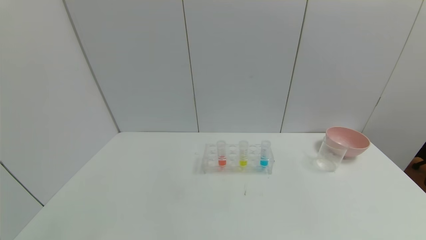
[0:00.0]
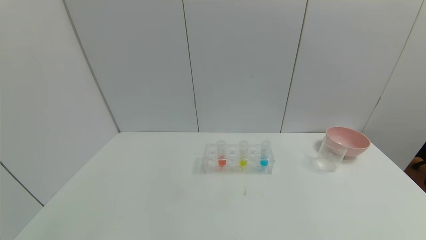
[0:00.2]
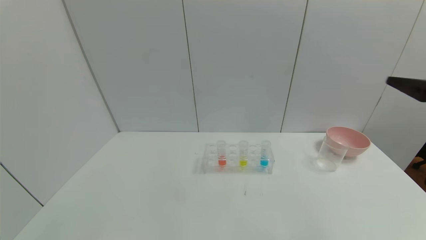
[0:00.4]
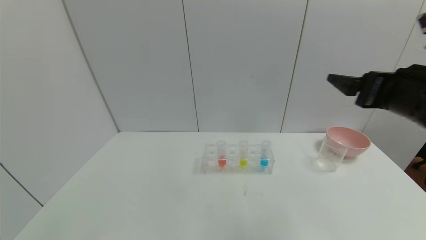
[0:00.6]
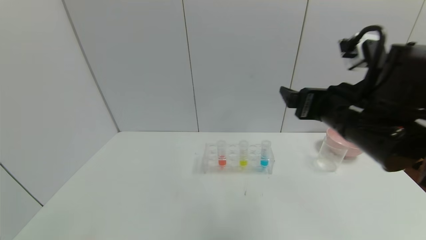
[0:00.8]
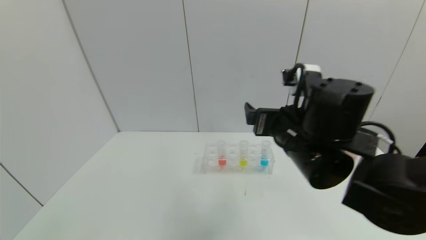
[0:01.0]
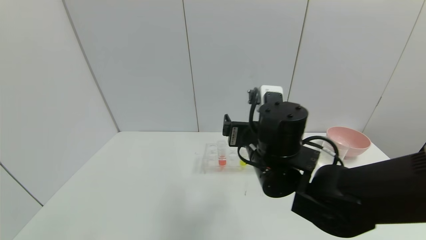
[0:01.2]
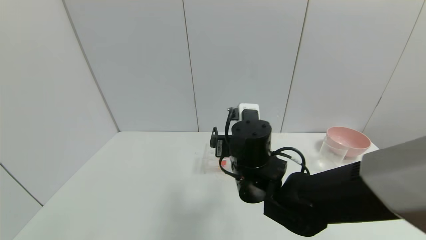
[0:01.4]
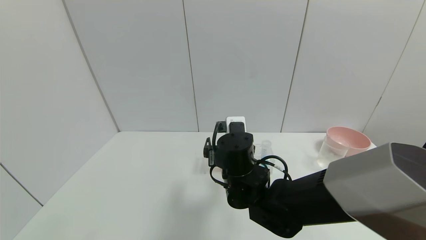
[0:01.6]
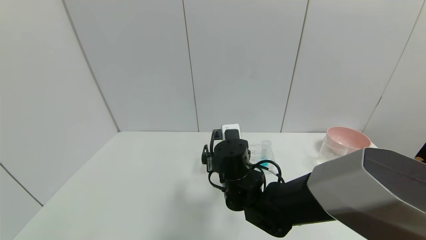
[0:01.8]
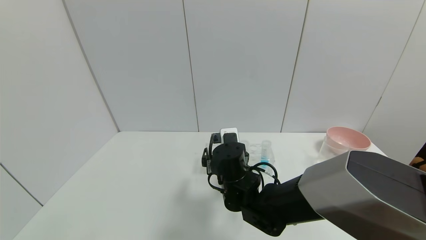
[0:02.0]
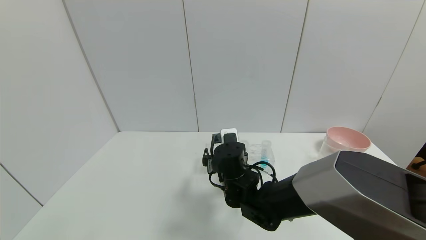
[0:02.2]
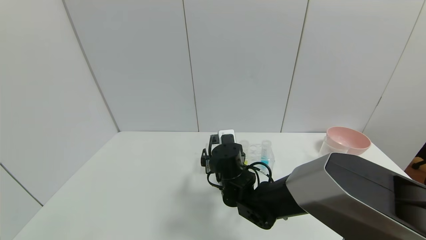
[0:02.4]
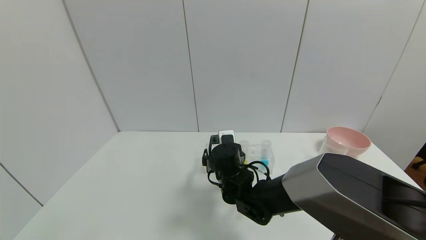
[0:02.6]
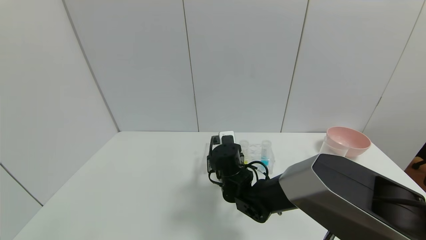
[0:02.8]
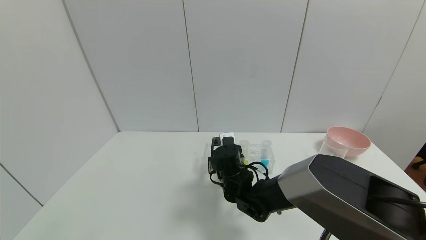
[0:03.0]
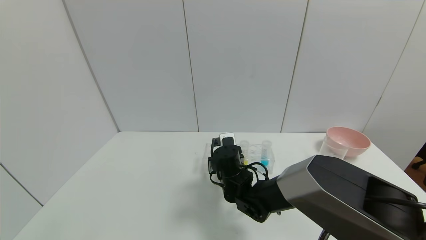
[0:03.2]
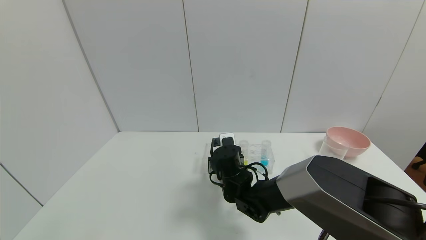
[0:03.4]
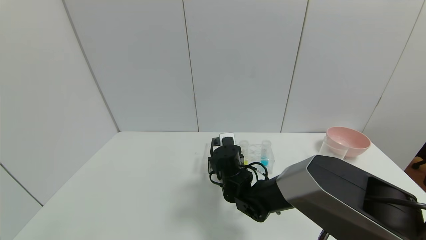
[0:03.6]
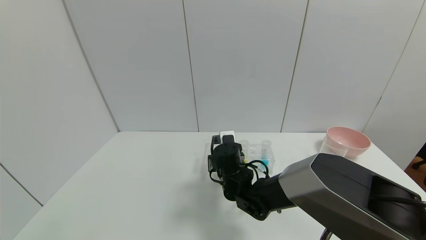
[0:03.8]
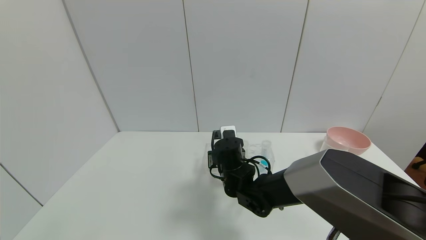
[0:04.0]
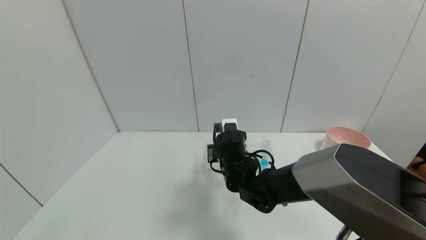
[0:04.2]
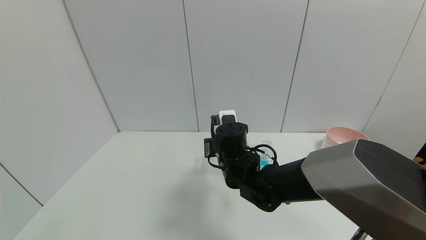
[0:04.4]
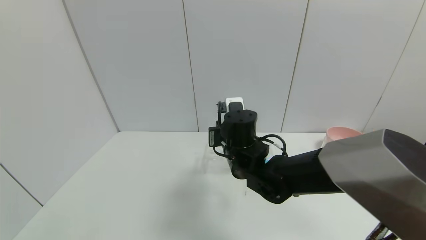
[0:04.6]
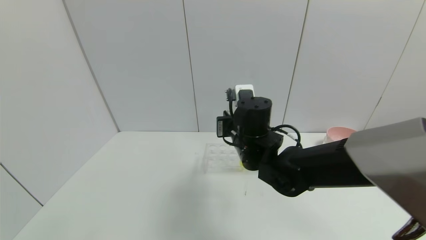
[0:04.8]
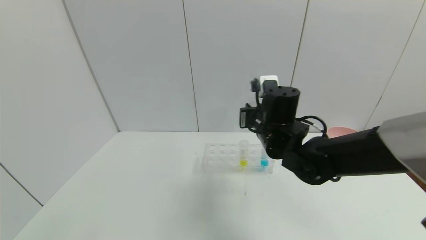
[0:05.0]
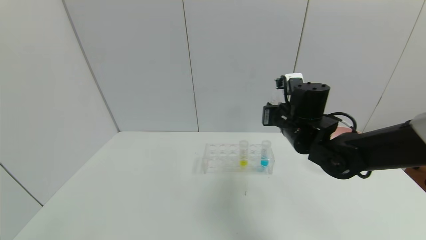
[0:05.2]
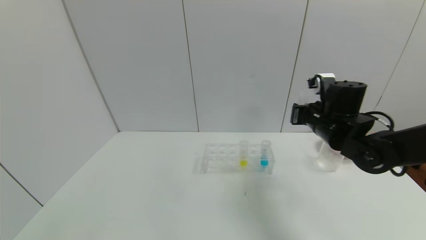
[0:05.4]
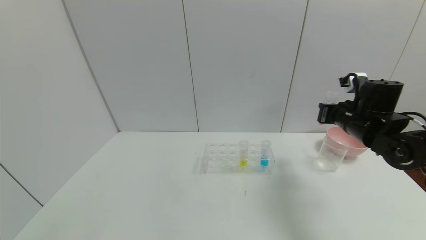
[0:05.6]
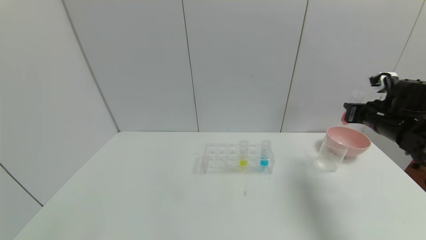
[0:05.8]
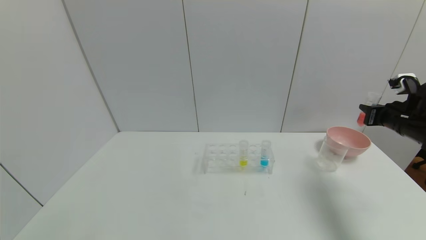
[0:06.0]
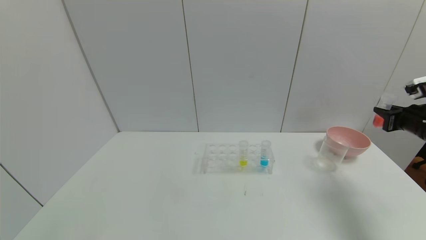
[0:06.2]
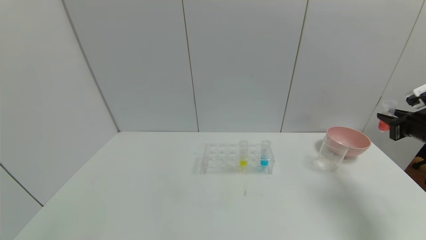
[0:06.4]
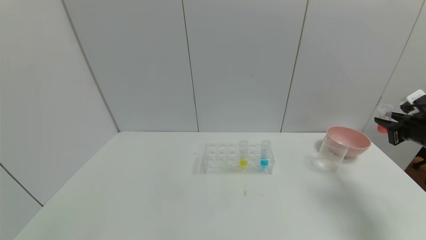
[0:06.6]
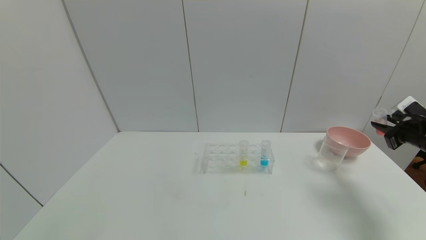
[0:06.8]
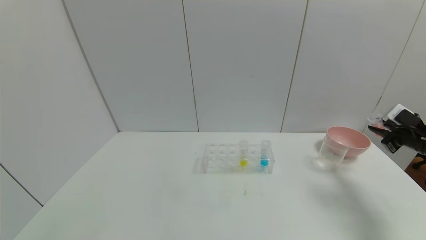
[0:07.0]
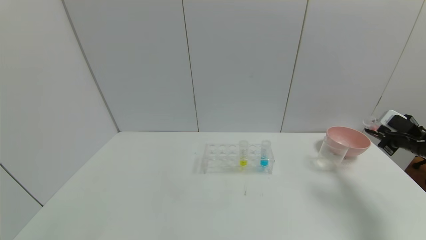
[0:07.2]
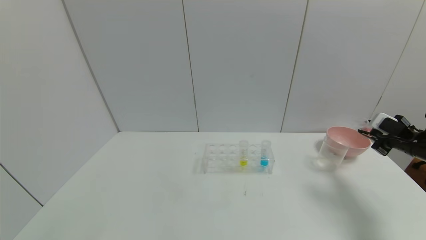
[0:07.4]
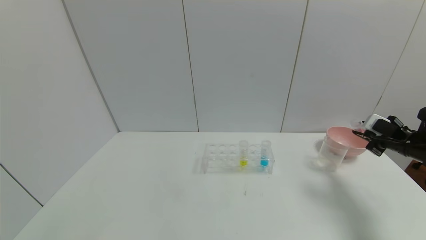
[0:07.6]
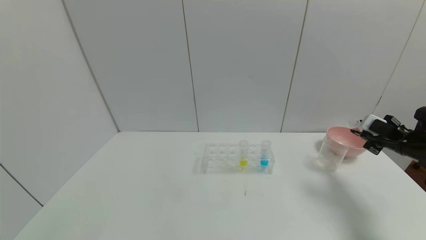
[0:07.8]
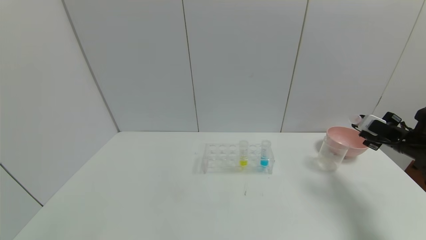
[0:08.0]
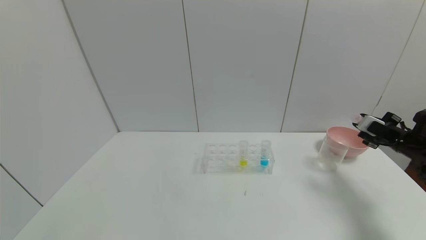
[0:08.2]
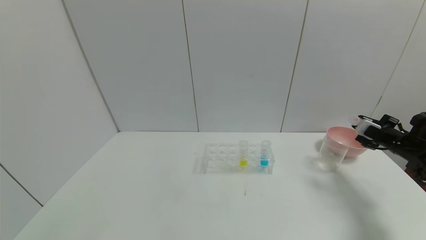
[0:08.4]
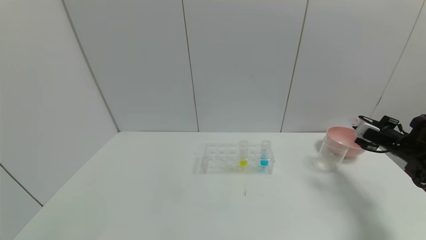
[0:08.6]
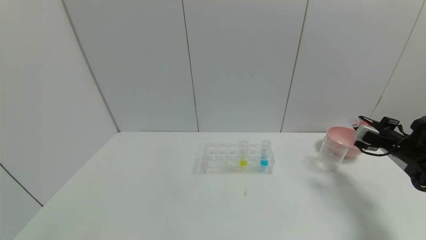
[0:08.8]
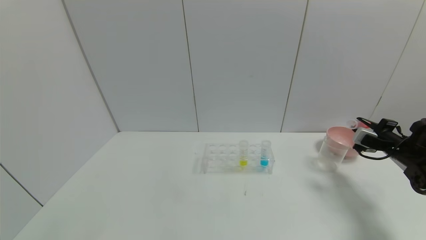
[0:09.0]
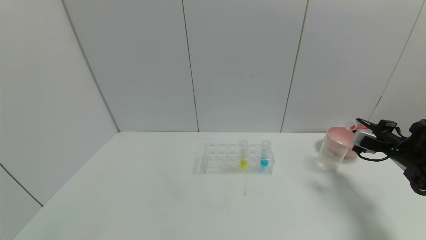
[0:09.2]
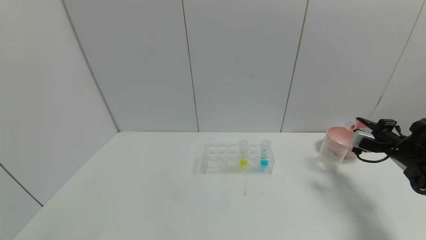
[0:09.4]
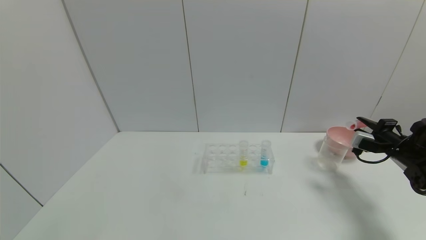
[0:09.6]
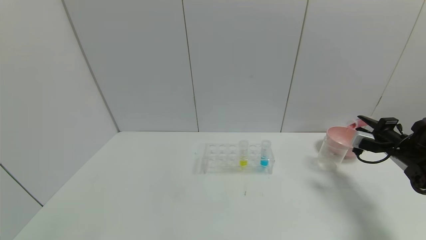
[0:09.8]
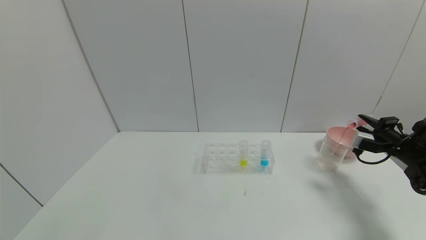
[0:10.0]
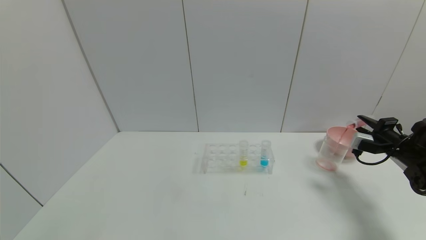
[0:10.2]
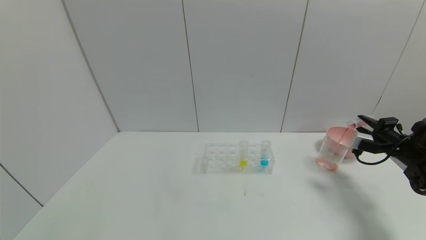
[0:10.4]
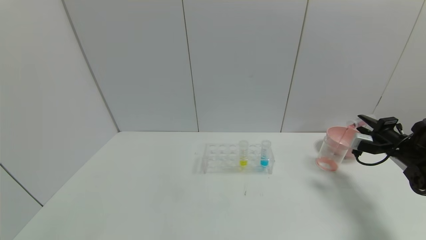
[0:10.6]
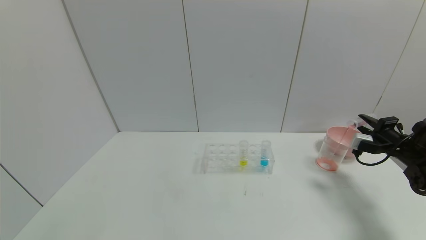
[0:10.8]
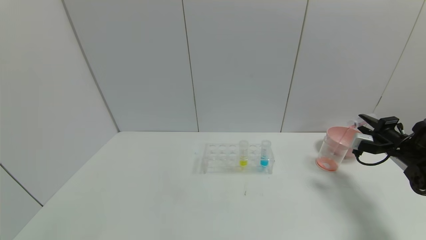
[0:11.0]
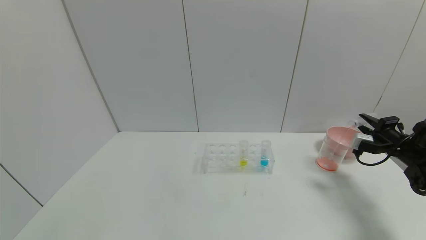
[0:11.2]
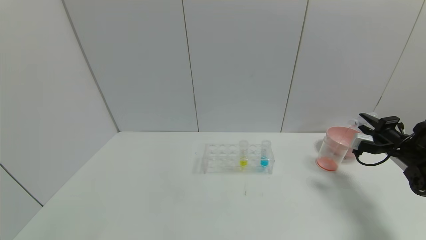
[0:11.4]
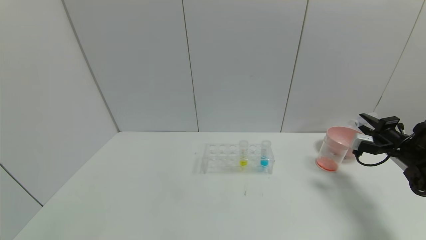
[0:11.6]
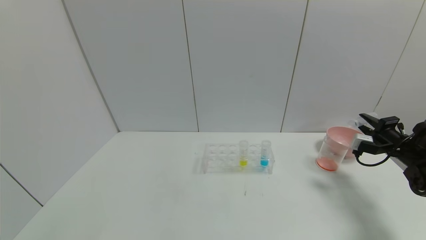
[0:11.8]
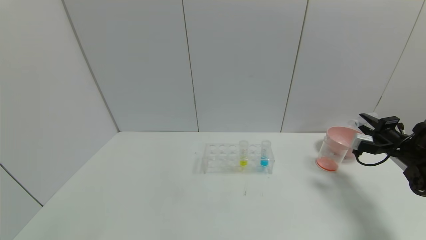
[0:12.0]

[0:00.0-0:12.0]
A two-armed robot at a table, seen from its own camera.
Task of the whole recording: pick up the test tube with yellow pigment and the test tube with red pigment by grippers and pour them into the beaker.
Step, 0:00.0 to 0:03.4: Grasp the red reagent with the right gripper.
Step, 0:03.6 to 0:11.6: Pour the red reagent into the graduated cylinder with the right gripper.
0:00.0 to 0:01.6: The right gripper moves to the left and forward, some 40 cm.
0:01.6 to 0:03.0: The right gripper is displaced downward and forward by about 10 cm, and closes its fingers.
0:03.0 to 0:04.4: The right gripper goes some 5 cm upward.
0:04.4 to 0:06.0: The right gripper is displaced to the right by about 40 cm.
0:06.0 to 0:07.6: The right gripper travels downward by roughly 5 cm.
0:09.0 to 0:10.4: There are only small adjustments of the grippers.

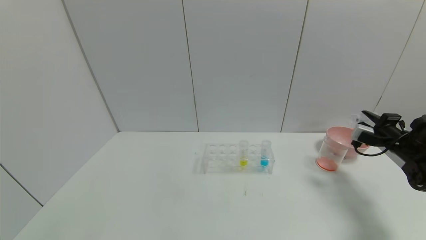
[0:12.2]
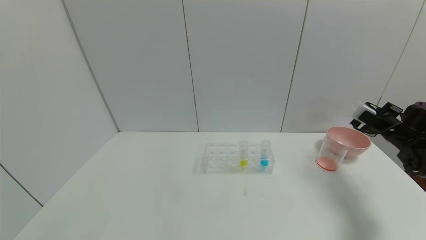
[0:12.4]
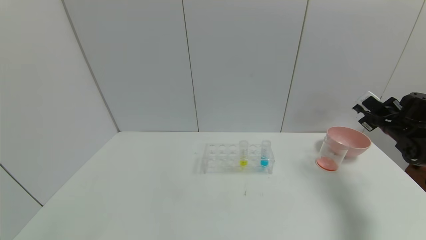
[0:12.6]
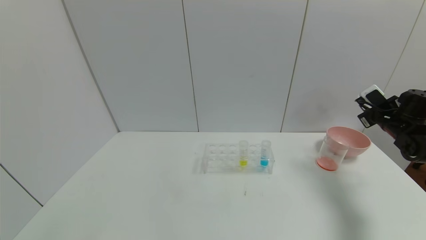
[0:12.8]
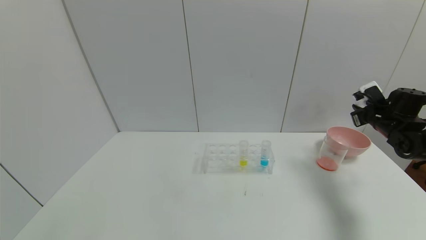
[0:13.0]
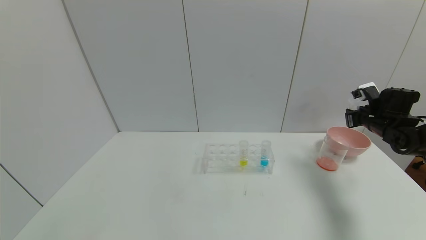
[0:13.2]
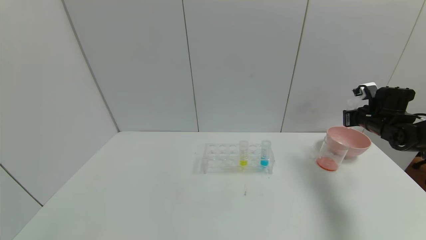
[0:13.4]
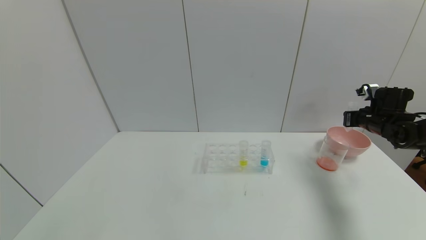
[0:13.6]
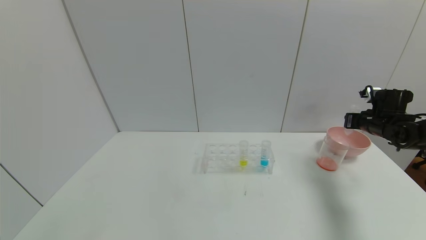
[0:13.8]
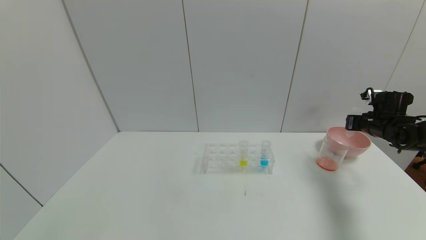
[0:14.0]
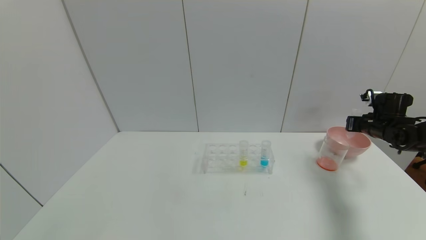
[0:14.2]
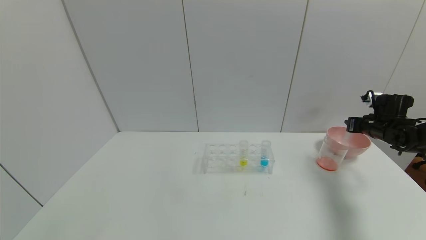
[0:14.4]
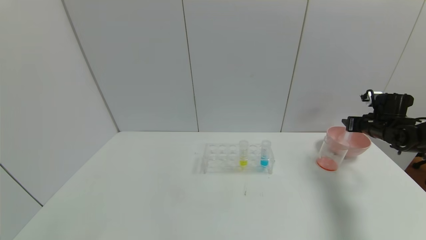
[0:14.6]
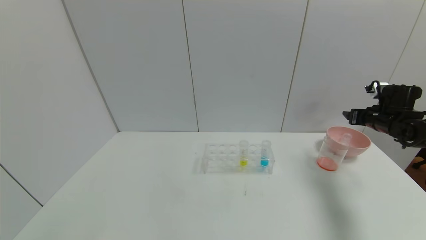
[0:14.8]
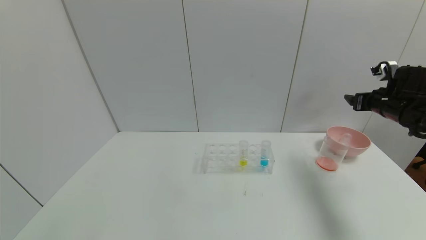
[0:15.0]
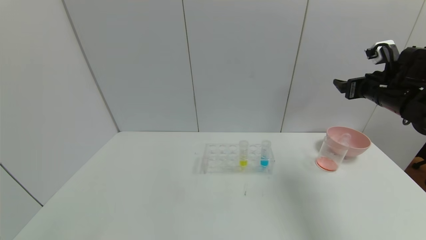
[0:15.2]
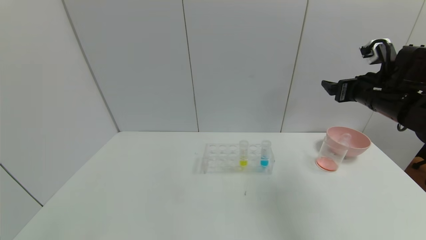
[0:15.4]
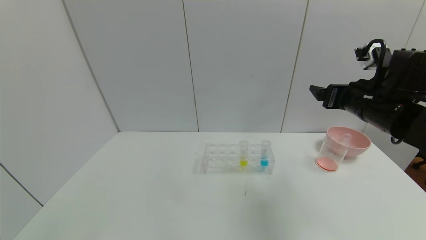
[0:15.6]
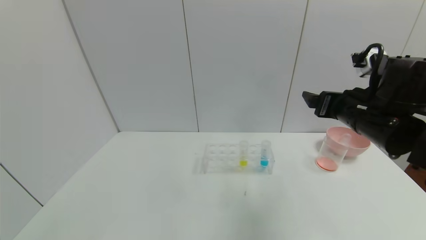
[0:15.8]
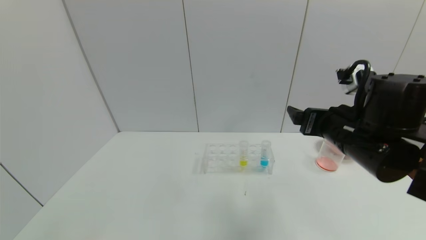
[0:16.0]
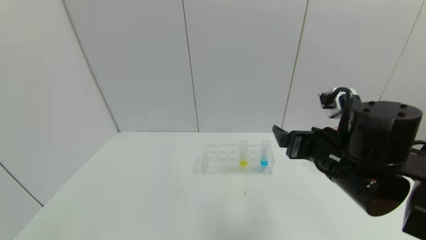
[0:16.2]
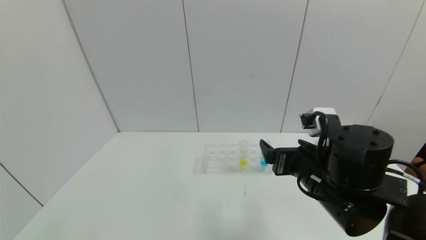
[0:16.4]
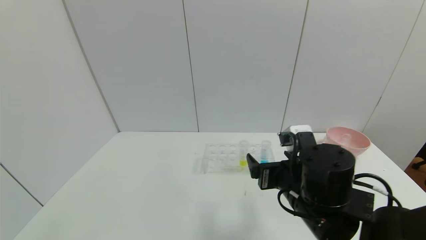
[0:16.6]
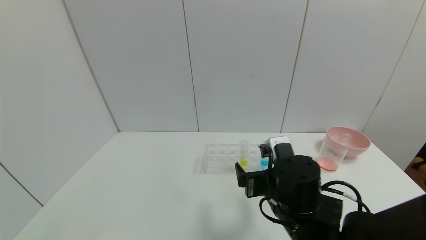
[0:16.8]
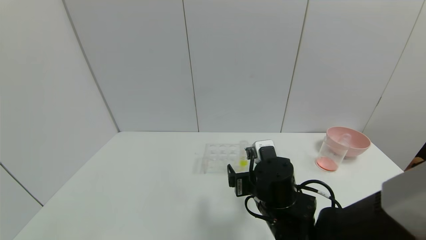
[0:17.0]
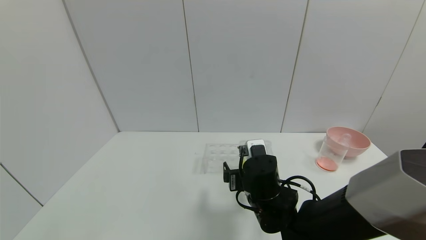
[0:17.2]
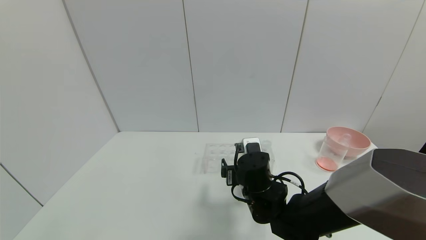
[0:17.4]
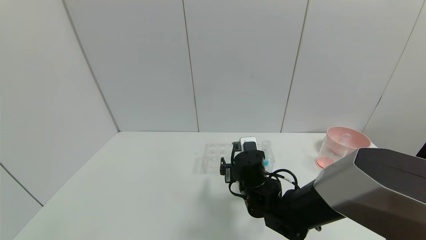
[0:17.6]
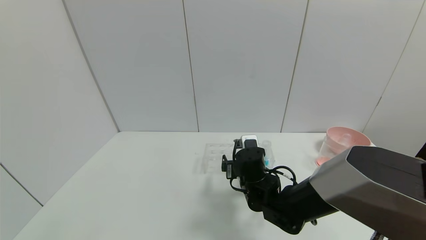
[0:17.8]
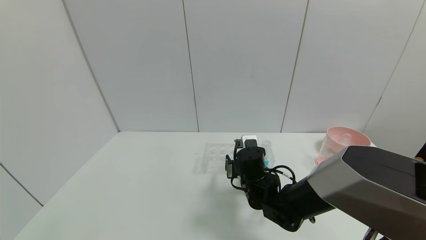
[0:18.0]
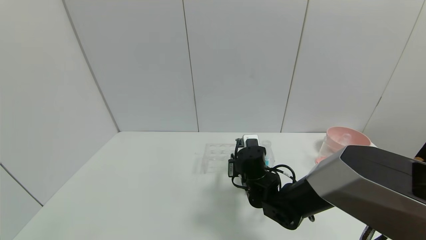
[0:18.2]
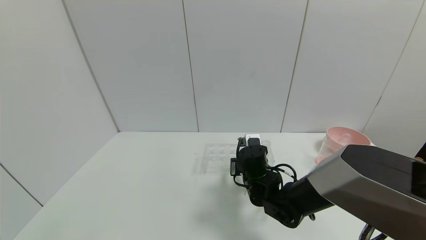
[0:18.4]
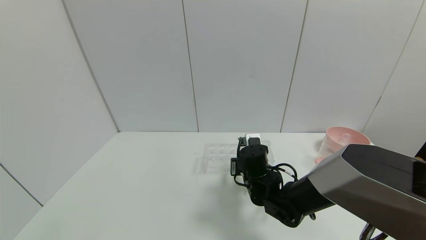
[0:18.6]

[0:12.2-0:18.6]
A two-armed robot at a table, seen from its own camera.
Task of the whole recording: pick up the test tube with yellow pigment and the test tube with red pigment by grippers and pour them into the beaker.
Step, 0:12.2 to 0:14.6: Place the test tube into the bowl with the right gripper.
0:12.2 to 0:13.8: The right gripper travels forward by about 5 cm.
0:13.8 to 0:15.4: The right gripper goes some 20 cm to the left, upward and backward, and opens its fingers.
0:15.4 to 0:17.0: The right gripper shifts approximately 30 cm to the left, downward and backward.
0:17.0 to 0:18.6: The right gripper shifts approximately 10 cm forward, and closes its fingers.
